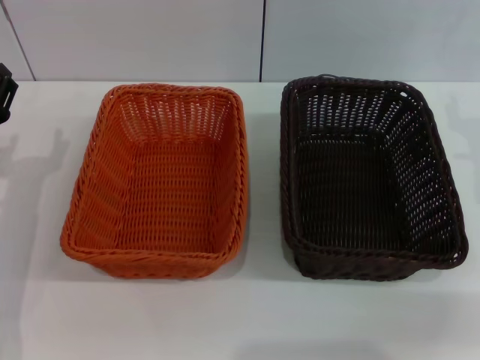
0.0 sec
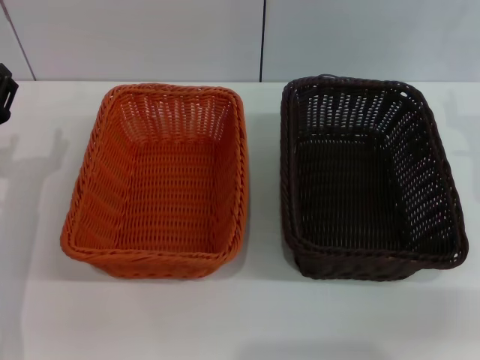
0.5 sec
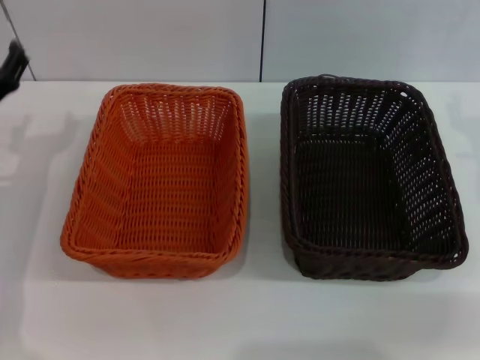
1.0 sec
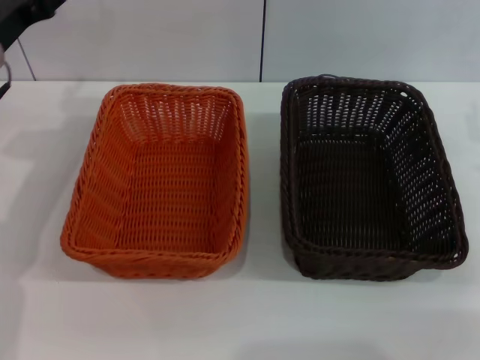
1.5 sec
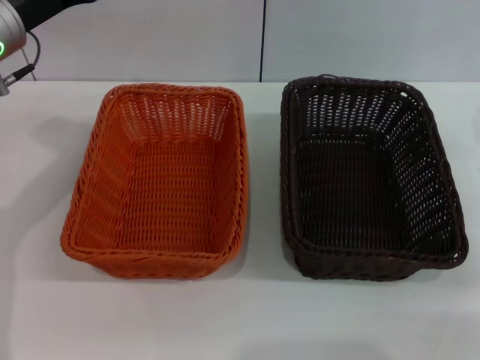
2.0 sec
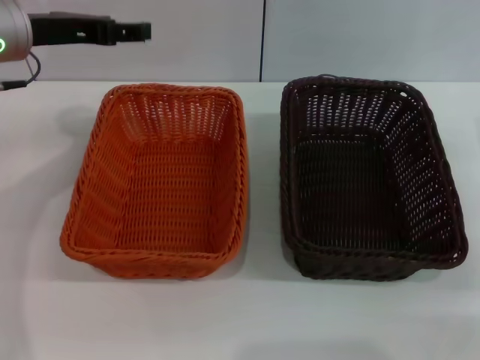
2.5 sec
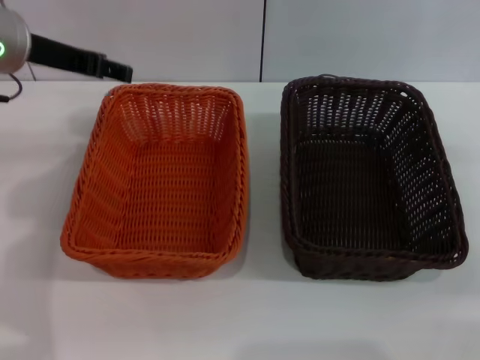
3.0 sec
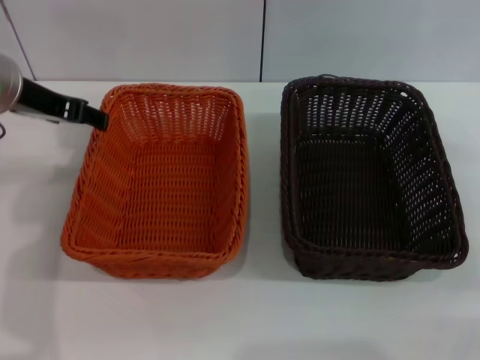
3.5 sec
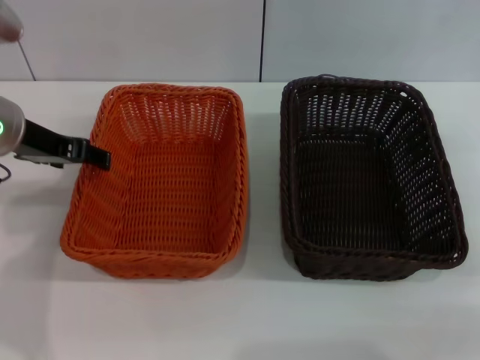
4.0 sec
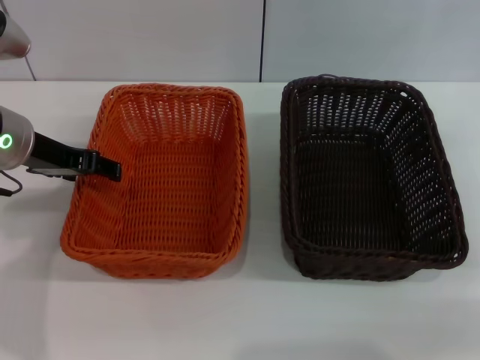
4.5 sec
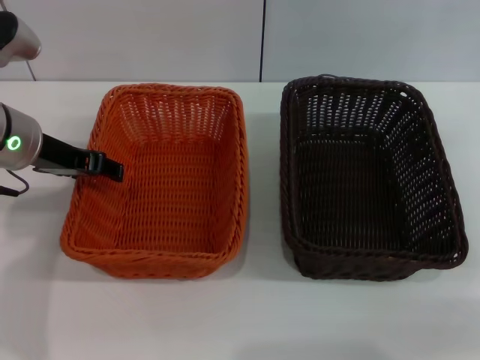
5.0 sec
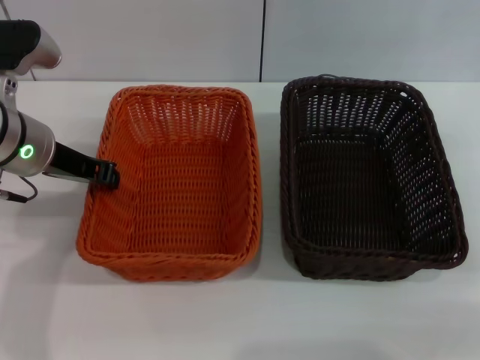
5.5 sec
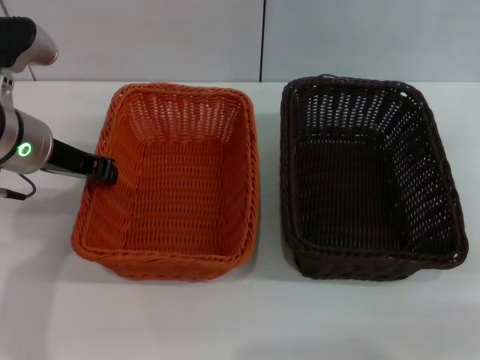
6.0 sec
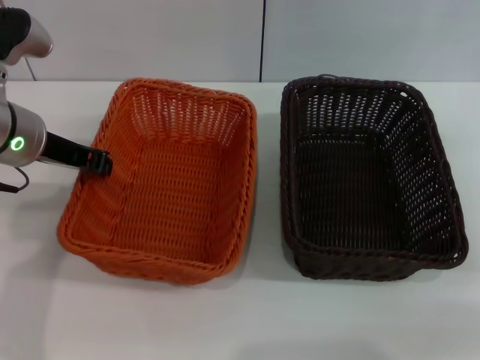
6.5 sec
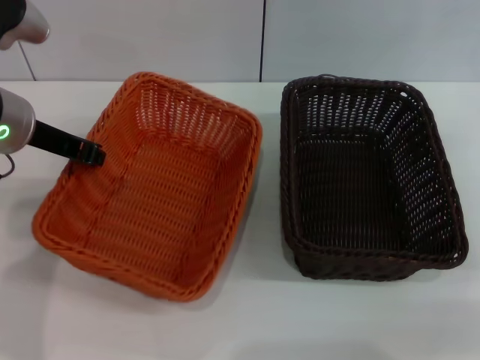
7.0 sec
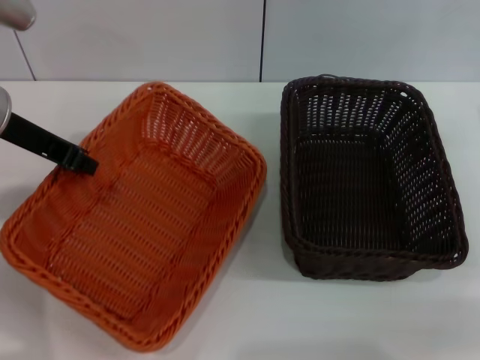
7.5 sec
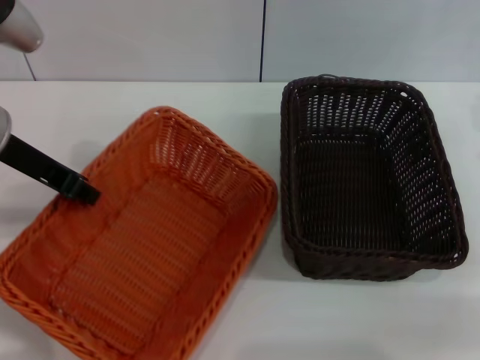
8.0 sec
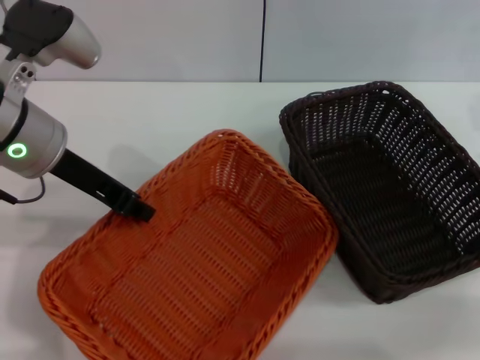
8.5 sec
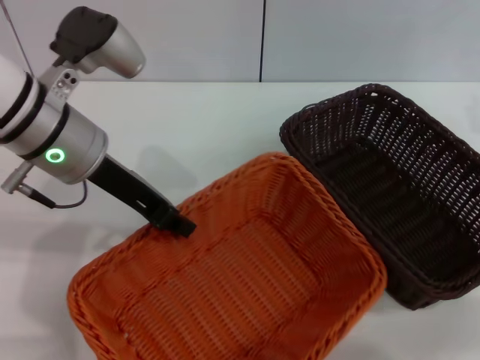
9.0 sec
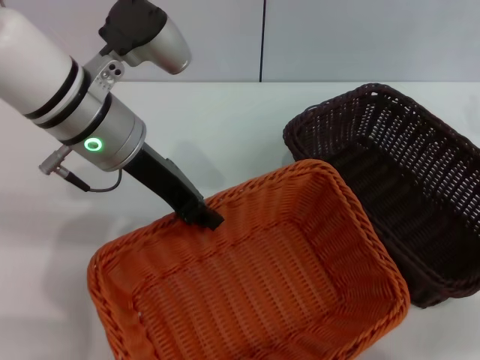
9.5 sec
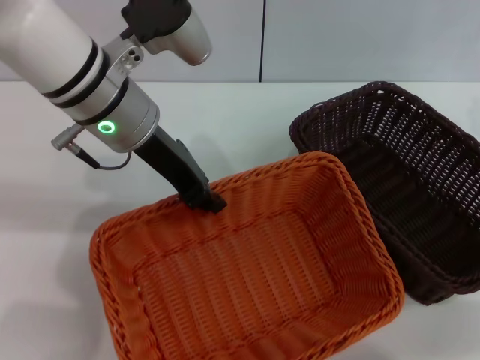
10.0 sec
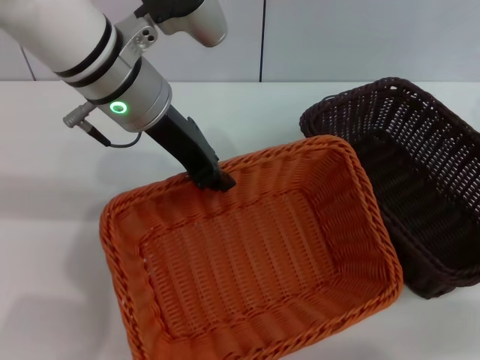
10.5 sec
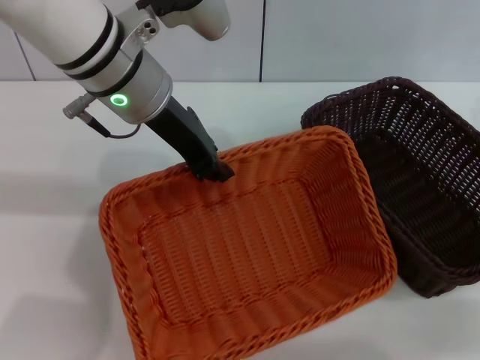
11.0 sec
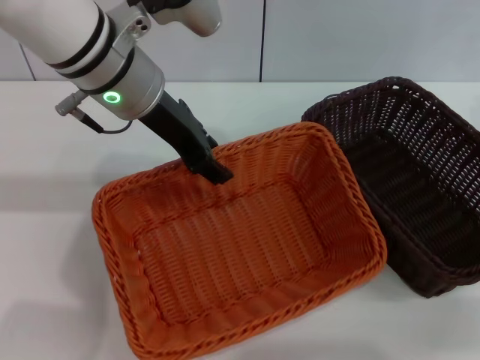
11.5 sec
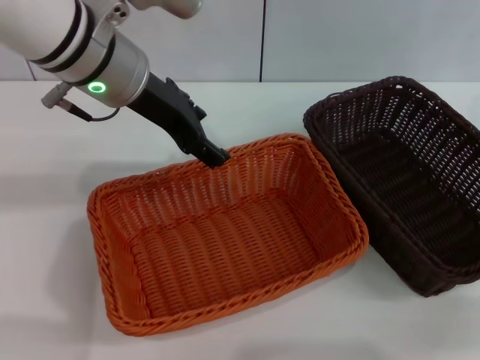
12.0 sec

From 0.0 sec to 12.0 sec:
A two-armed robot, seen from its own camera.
Step, from 0.0 sec to 6.5 sec: Pick up the light basket with the left gripper.
Step, from 7.0 sec to 11.5 sec: Place the light basket in the center of view with the left gripper.
From 0.0 sec to 2.0 sec: The left gripper heads upward and forward, covering about 15 cm.
From 4.0 sec to 6.0 sec: The left gripper closes its fingers.
From 6.0 sec to 8.0 sec: The left gripper moves upward, about 5 cm.
From 8.0 sec to 10.0 sec: The left gripper goes some 10 cm to the right.
From 10.0 sec to 12.0 sec: The left gripper opens its fingers.

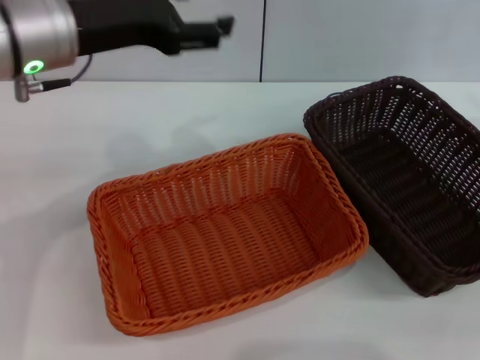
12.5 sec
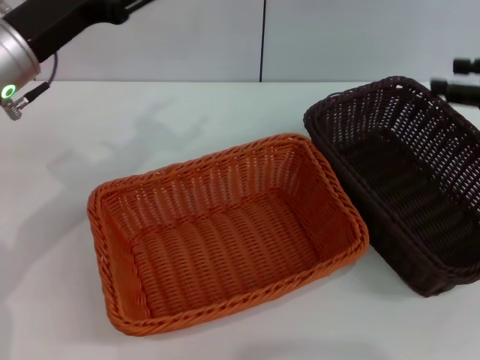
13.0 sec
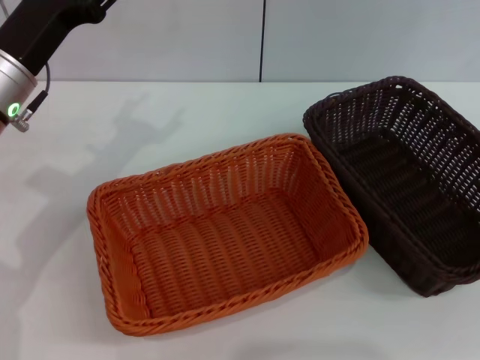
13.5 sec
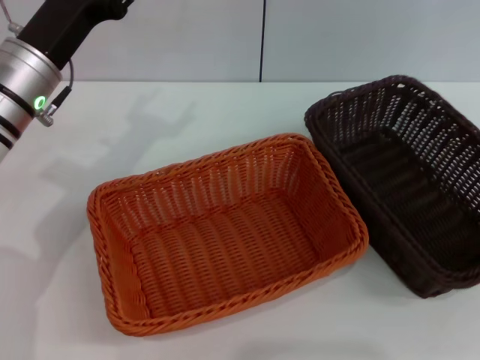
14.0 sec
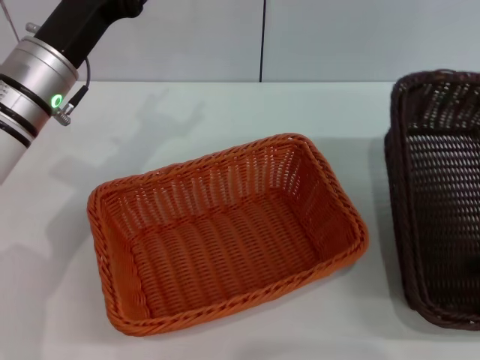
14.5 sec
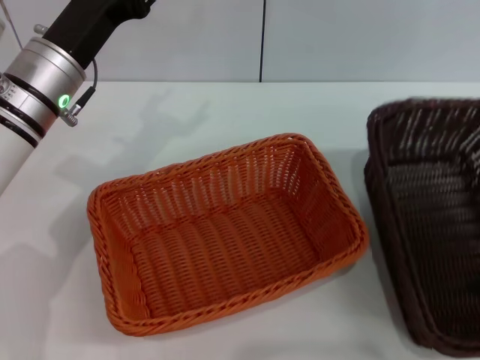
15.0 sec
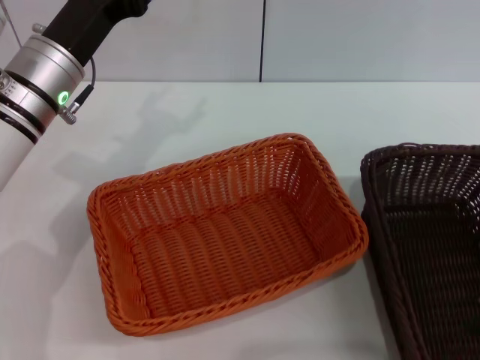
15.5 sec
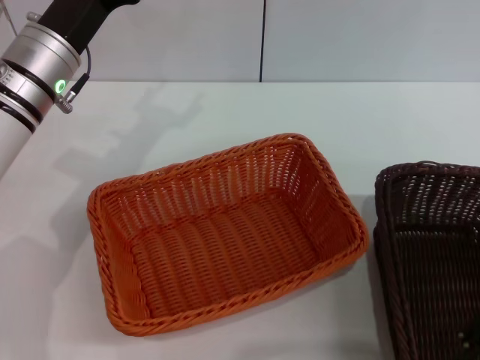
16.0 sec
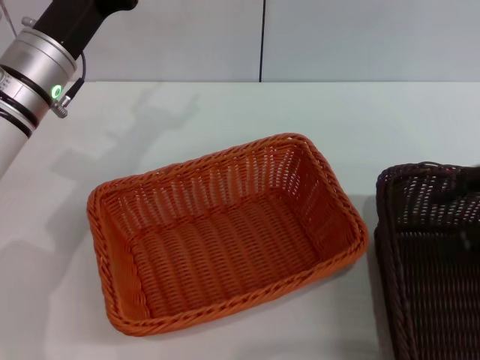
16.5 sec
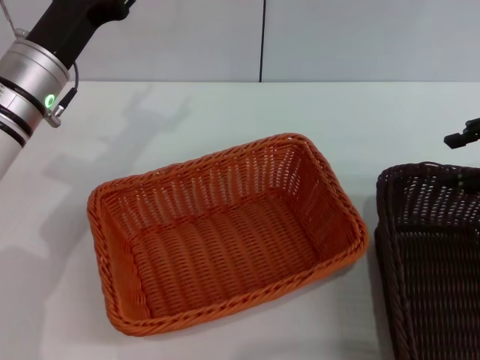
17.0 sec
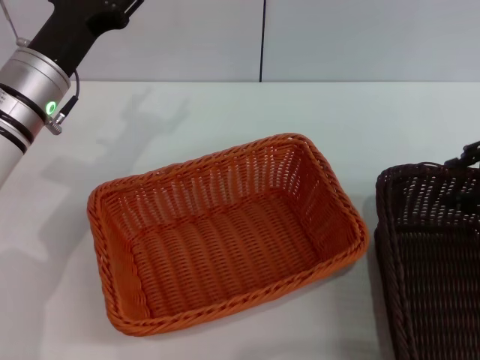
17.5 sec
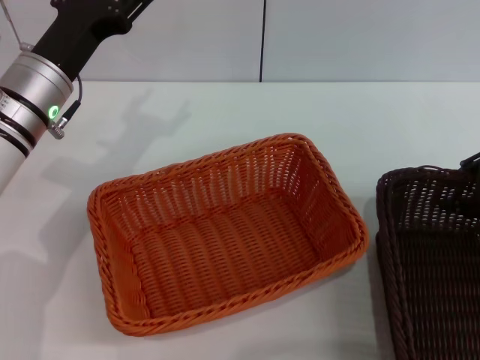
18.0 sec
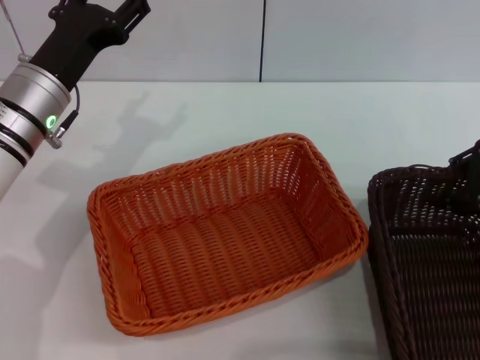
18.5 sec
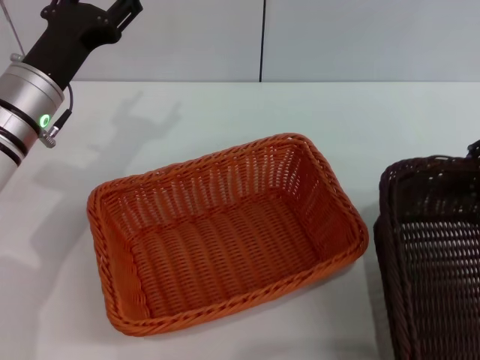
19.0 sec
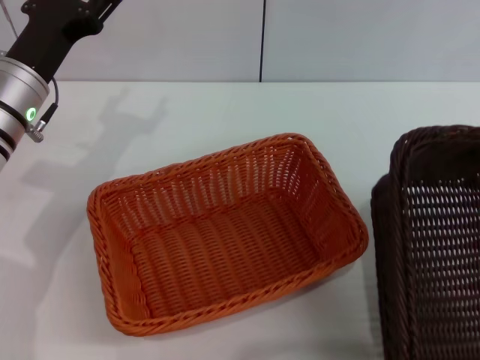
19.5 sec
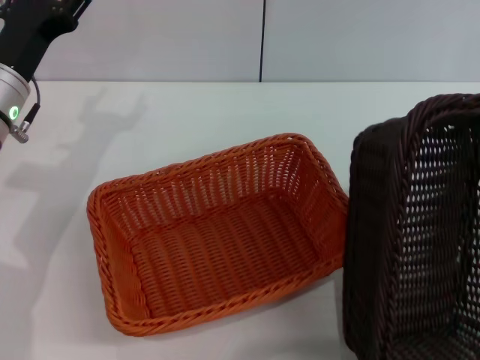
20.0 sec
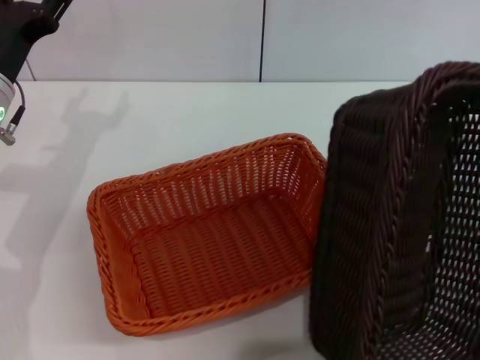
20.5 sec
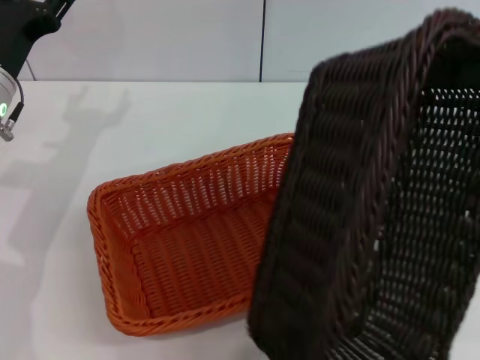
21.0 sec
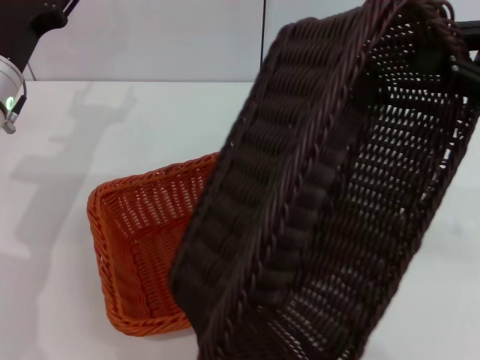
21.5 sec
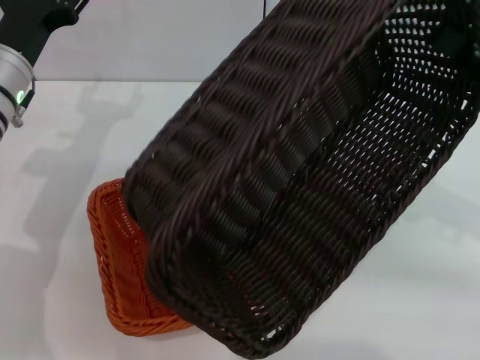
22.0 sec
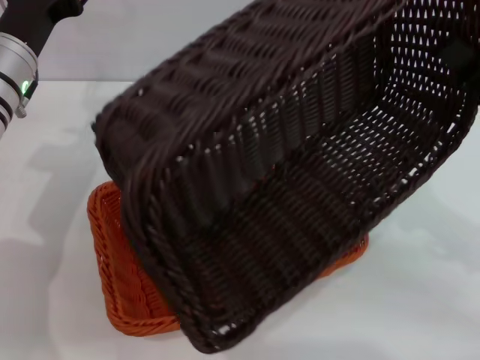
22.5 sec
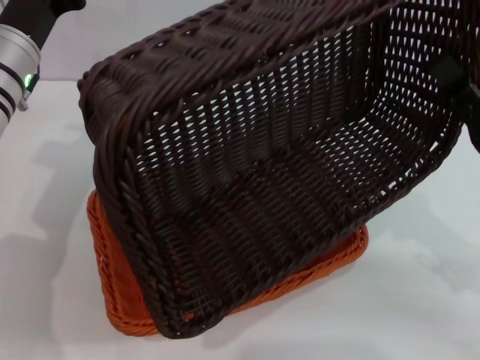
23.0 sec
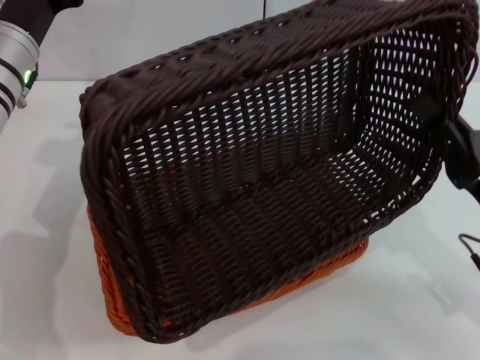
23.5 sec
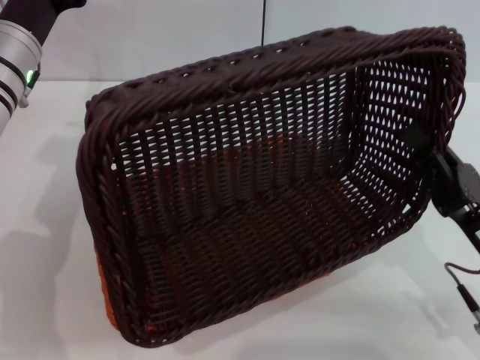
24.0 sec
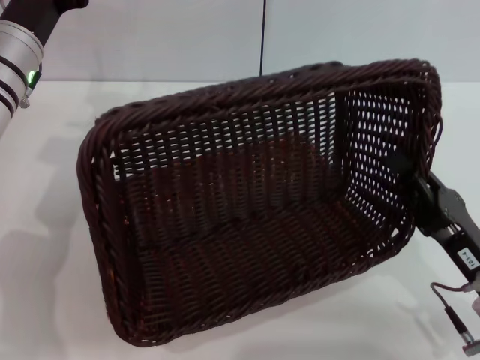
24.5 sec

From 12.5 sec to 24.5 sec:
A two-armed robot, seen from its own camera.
Step, from 12.5 sec to 18.5 sec: Pick up the dark basket with the right gripper.
From 12.5 sec to 14.5 sec: The right gripper heads backward, covering about 5 cm, while the left gripper heads downward, covering about 10 cm.
From 16.5 sec to 18.5 sec: The right gripper shifts by roughly 5 cm, and closes.
From 18.5 sec to 20.5 sec: The right gripper travels upward by approximately 10 cm, and closes its fingers.
From 20.5 sec to 22.5 sec: The right gripper heads downward, covering about 15 cm.
From 22.5 sec to 24.5 sec: The right gripper heads downward, backward and to the left, covering some 15 cm.

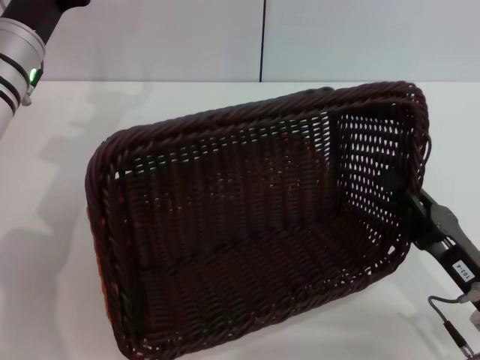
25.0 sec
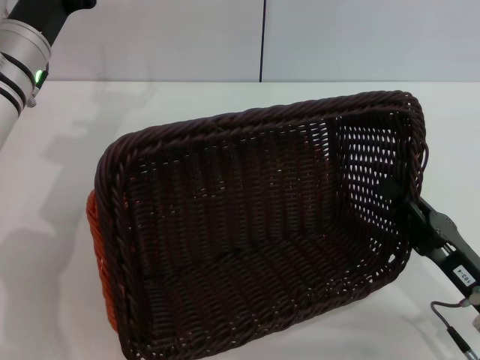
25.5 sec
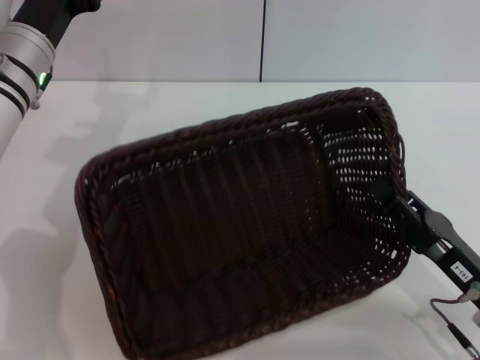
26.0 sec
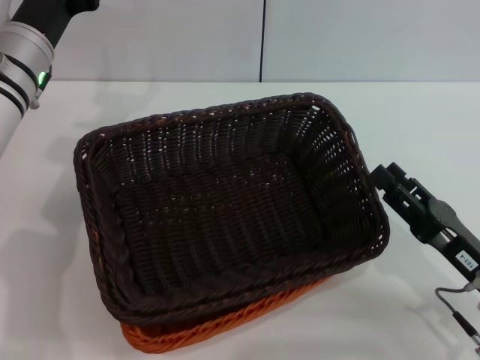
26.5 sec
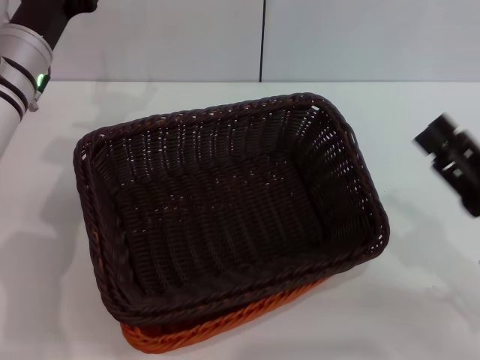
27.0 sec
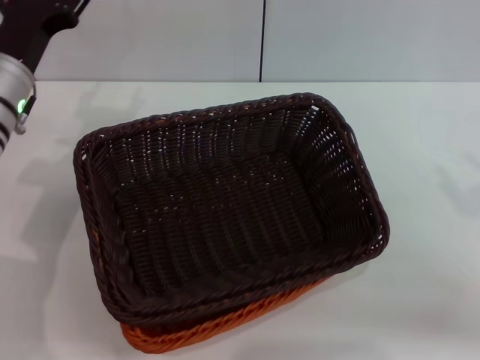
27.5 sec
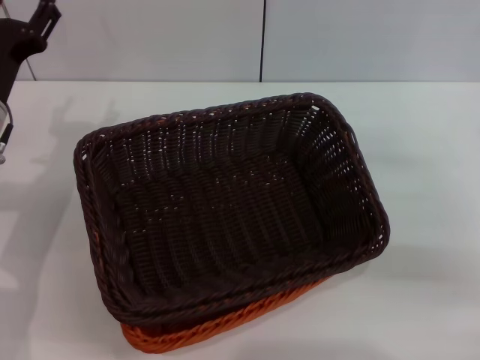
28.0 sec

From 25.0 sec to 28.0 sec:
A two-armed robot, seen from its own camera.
From 25.0 sec to 26.5 sec: The right gripper opens.
From 26.5 sec to 28.0 sec: The left gripper is displaced backward by some 5 cm. The right gripper heads forward, to the right and upward, covering roughly 15 cm.
